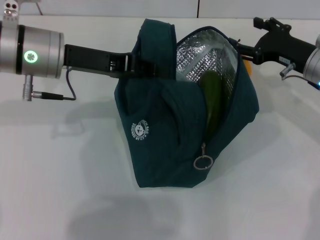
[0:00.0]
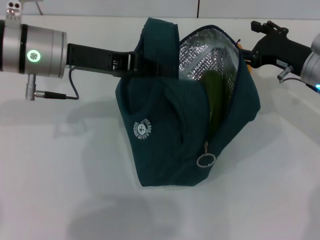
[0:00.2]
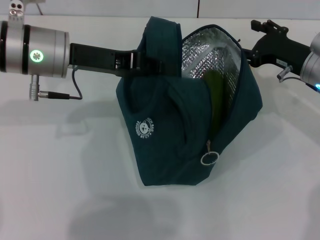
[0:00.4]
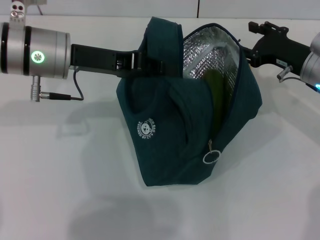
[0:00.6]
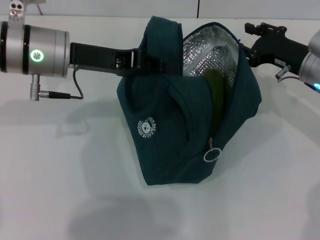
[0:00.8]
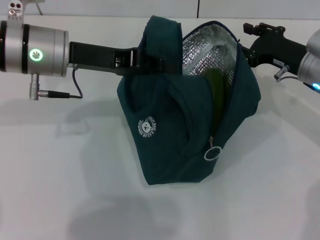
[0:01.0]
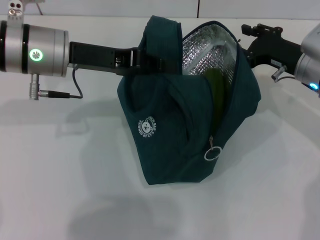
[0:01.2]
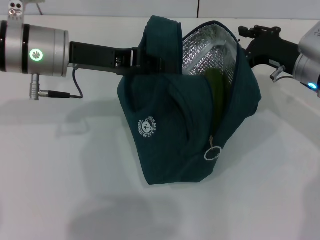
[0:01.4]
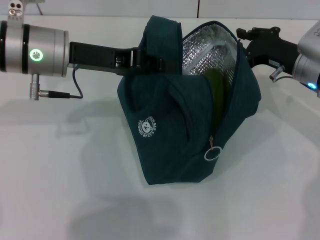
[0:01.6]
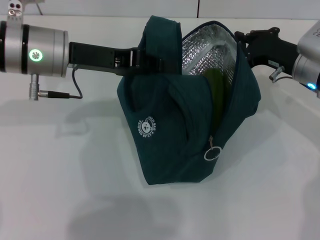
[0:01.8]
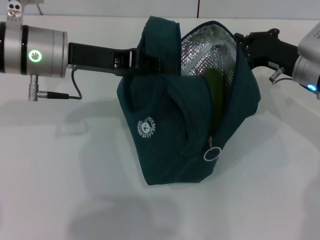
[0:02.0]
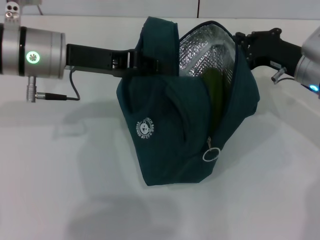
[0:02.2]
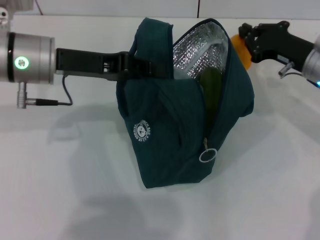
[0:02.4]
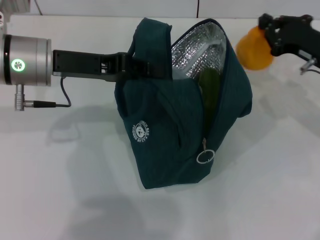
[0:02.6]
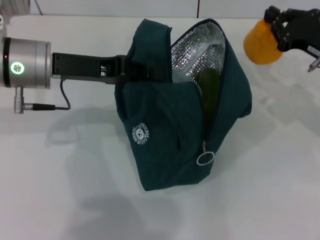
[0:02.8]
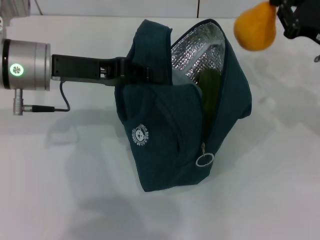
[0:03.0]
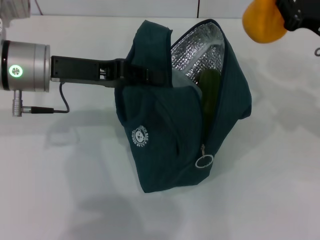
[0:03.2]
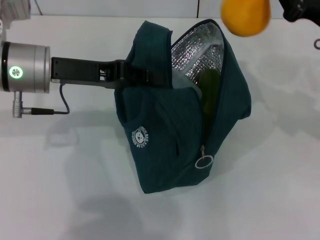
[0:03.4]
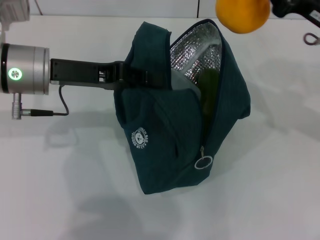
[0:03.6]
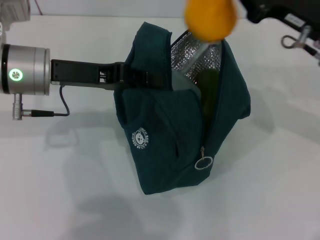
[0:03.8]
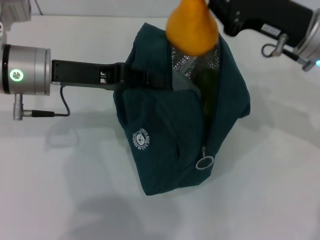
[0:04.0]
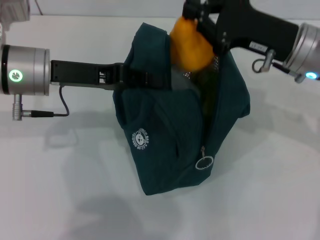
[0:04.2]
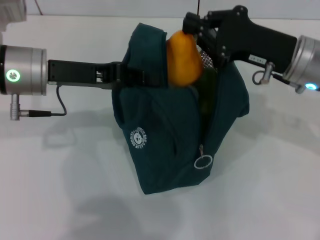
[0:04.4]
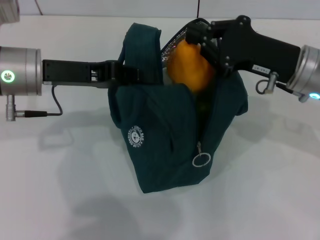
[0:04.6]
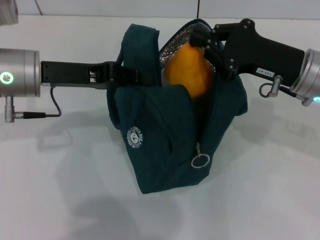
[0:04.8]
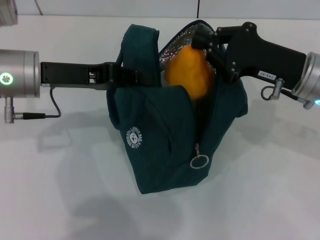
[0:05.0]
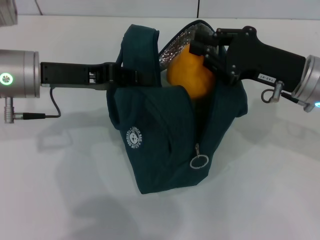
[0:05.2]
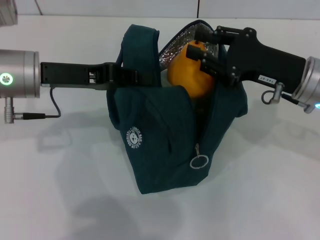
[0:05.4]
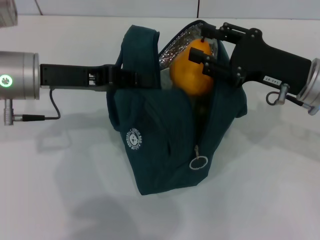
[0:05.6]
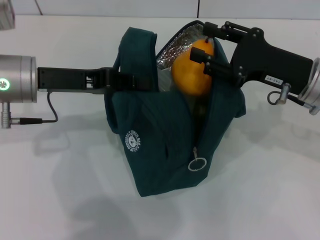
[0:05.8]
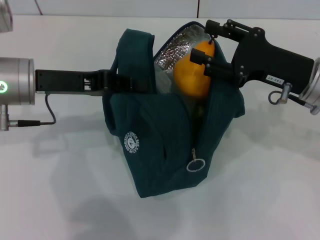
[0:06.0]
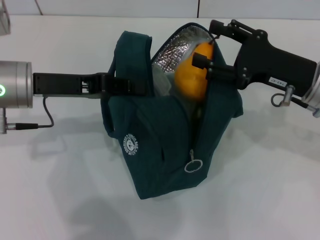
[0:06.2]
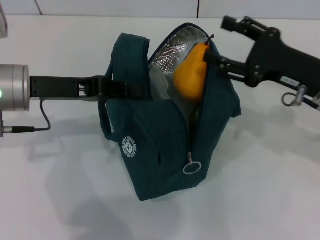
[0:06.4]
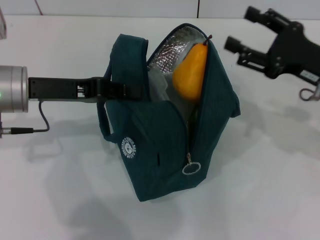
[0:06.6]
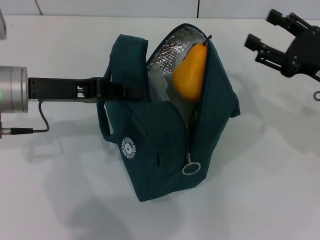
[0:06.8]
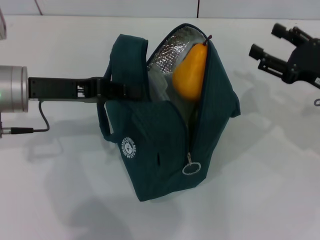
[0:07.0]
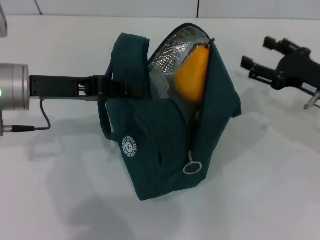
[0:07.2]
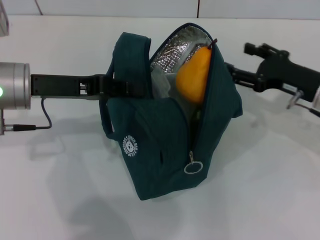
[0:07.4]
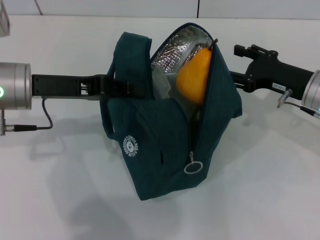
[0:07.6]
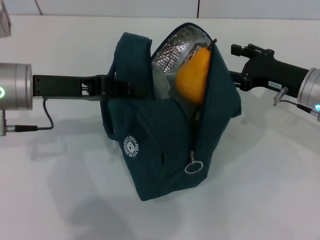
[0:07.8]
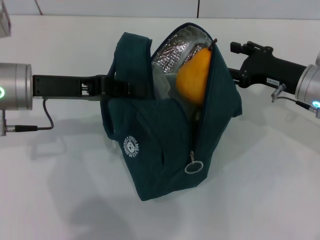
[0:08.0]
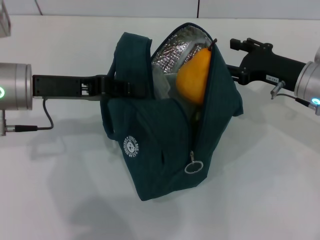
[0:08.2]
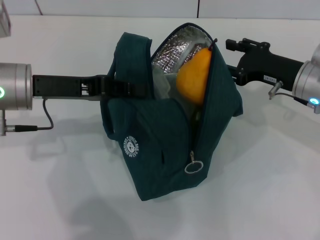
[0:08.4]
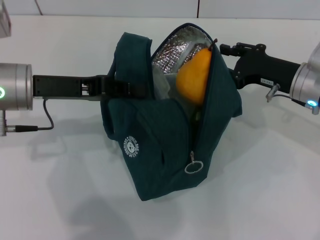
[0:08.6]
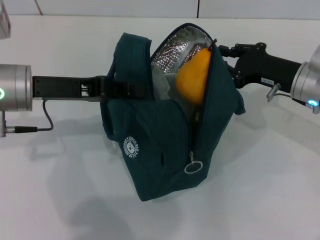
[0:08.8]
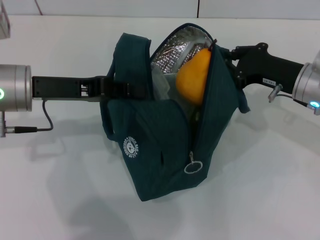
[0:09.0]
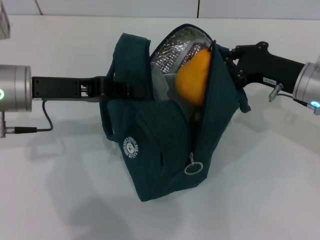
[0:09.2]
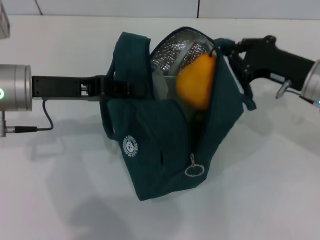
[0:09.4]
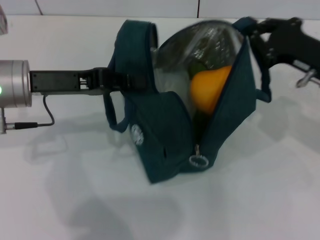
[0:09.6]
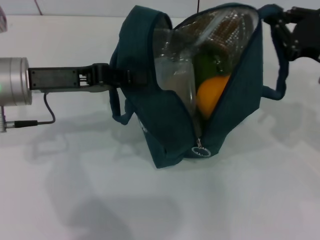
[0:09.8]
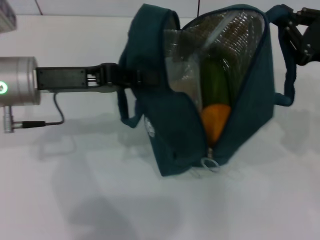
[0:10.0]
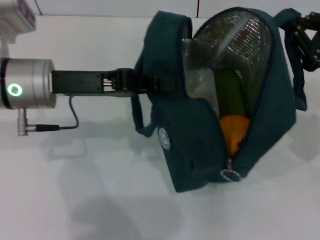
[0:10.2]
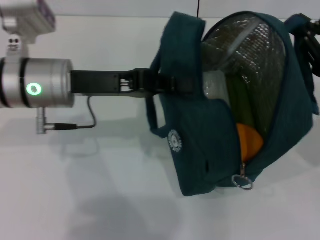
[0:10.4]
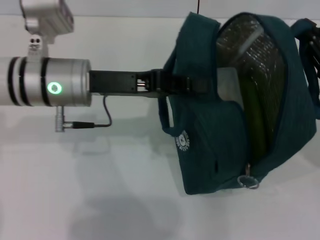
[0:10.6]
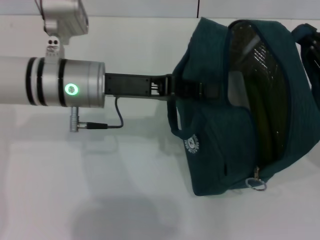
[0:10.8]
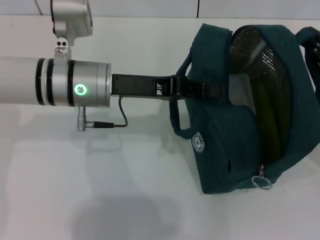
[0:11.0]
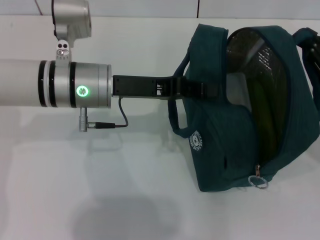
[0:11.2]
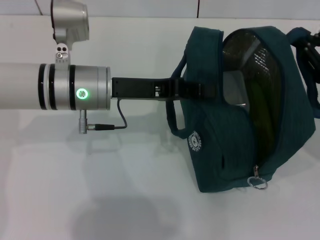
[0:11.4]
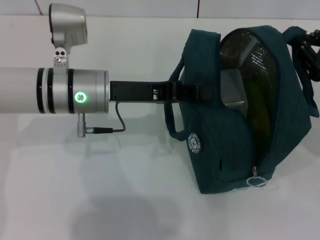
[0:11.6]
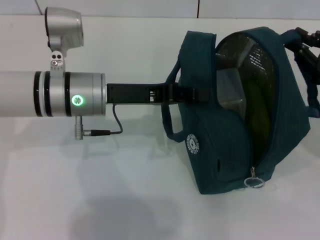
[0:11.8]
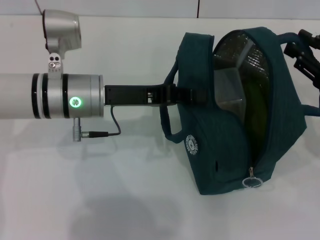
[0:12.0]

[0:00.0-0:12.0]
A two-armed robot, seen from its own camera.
Step, 0:00.0 to 0:02.0: Grab the pear with your right hand.
Step, 0:02.2 to 0:05.4: Secure the lunch bag with your left hand.
0:00.0 to 0:01.6: The right gripper closes up.
0:01.6 to 0:03.0: The right gripper heads to the right, covering approximately 5 cm, and closes.
0:03.0 to 0:04.4: The right gripper shifts roughly 10 cm to the left.
0:04.4 to 0:06.0: The right gripper opens its fingers.
0:06.0 to 0:07.6: The right gripper ends up some 5 cm from where it was.
0:07.6 to 0:09.0: The right gripper closes its fingers.
0:09.0 to 0:10.4: The right gripper shifts some 10 cm to the right and backward. Meanwhile the left gripper shifts some 5 cm to the right.

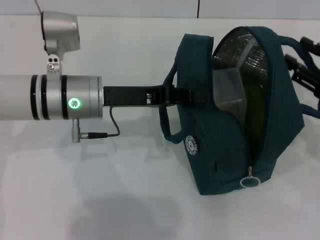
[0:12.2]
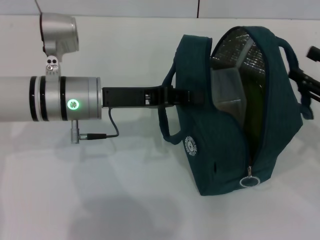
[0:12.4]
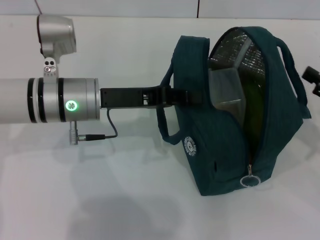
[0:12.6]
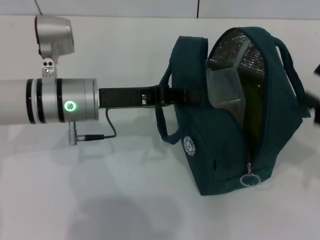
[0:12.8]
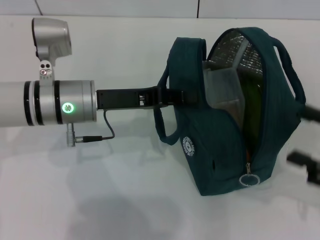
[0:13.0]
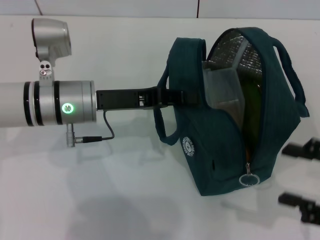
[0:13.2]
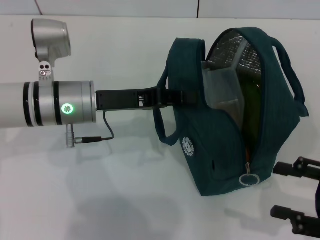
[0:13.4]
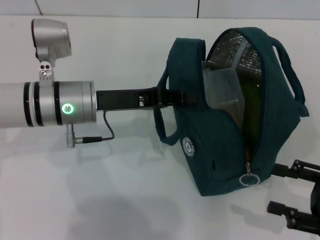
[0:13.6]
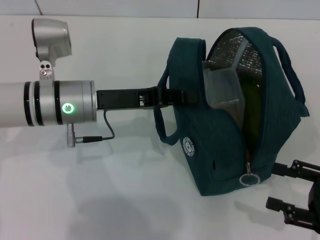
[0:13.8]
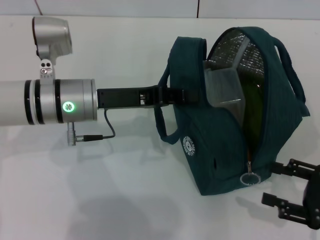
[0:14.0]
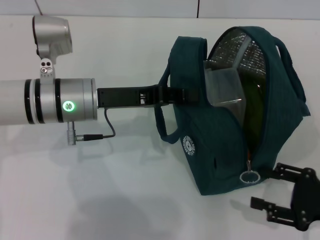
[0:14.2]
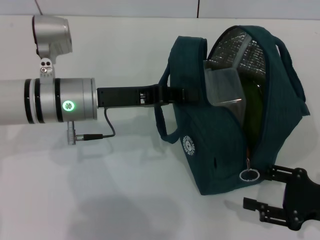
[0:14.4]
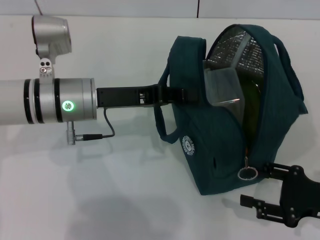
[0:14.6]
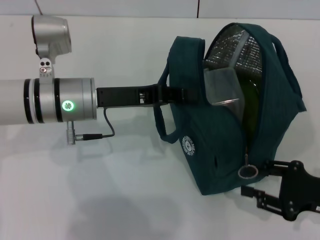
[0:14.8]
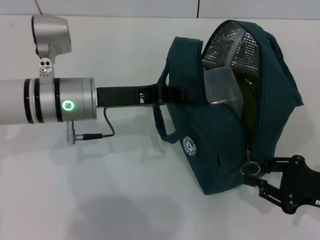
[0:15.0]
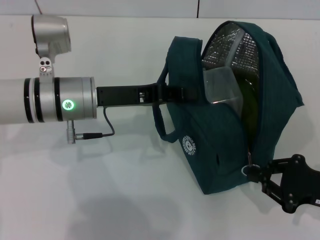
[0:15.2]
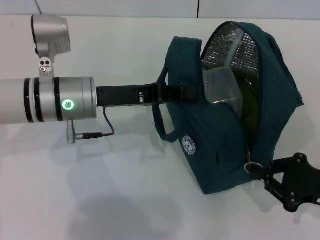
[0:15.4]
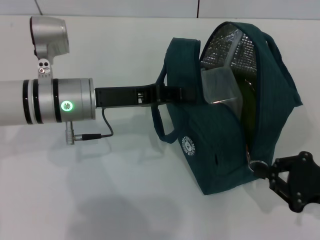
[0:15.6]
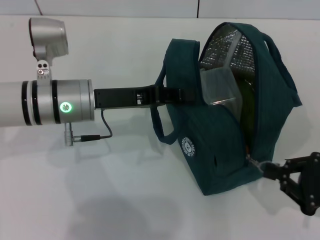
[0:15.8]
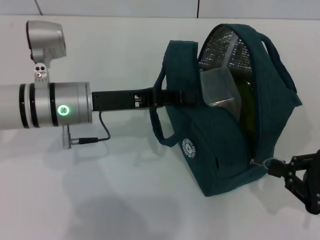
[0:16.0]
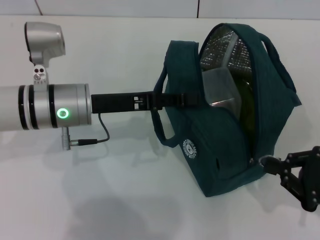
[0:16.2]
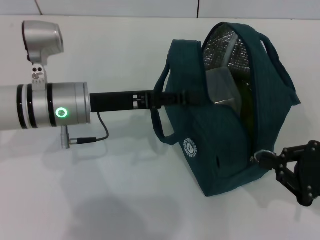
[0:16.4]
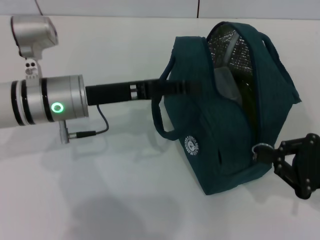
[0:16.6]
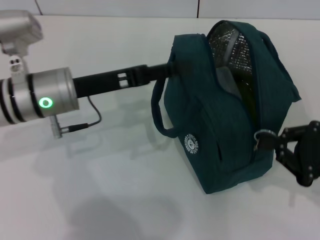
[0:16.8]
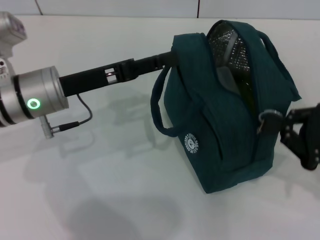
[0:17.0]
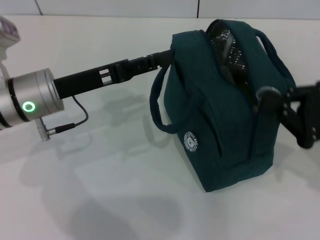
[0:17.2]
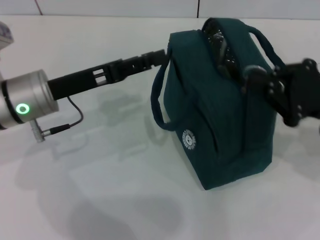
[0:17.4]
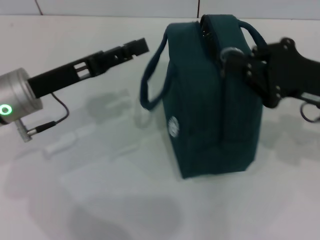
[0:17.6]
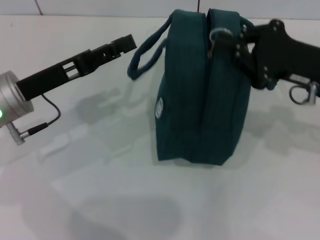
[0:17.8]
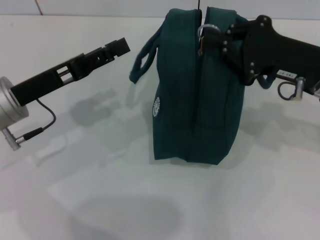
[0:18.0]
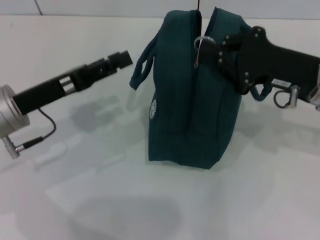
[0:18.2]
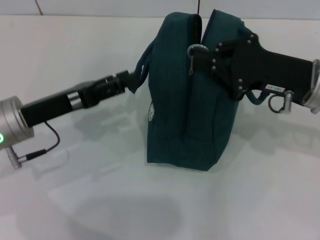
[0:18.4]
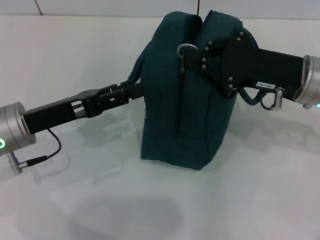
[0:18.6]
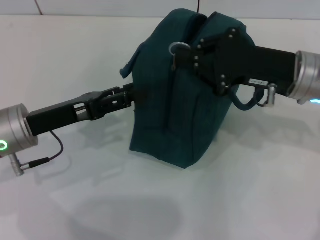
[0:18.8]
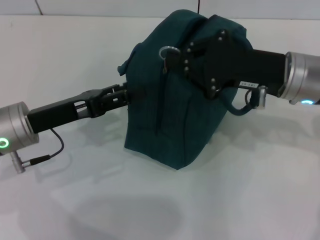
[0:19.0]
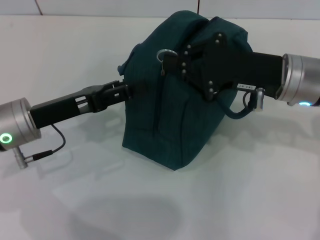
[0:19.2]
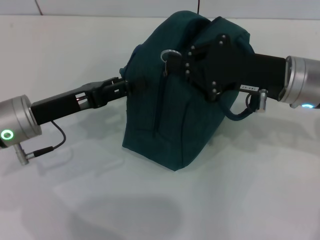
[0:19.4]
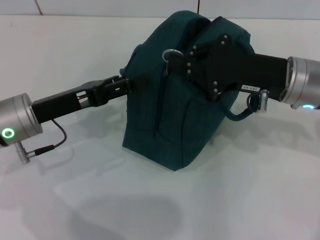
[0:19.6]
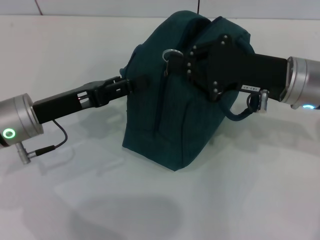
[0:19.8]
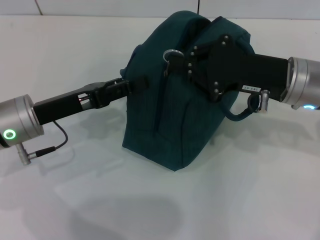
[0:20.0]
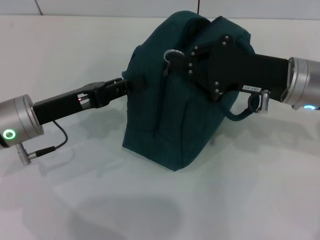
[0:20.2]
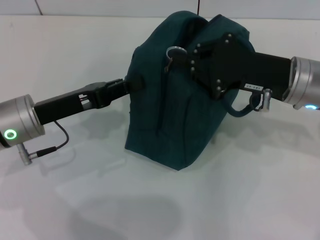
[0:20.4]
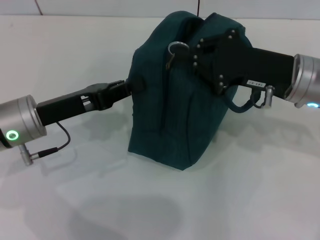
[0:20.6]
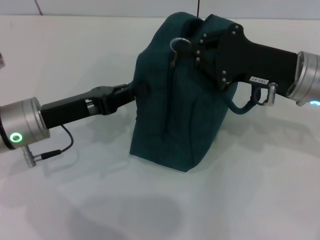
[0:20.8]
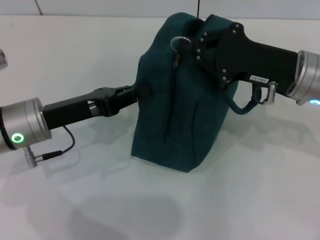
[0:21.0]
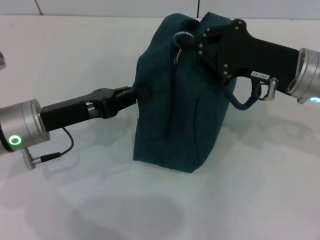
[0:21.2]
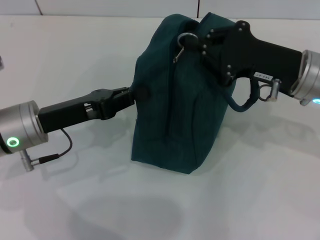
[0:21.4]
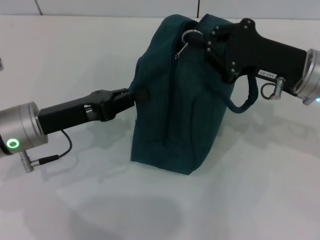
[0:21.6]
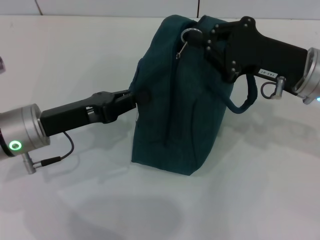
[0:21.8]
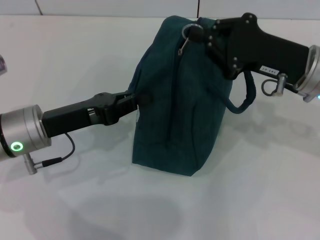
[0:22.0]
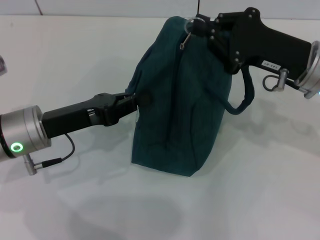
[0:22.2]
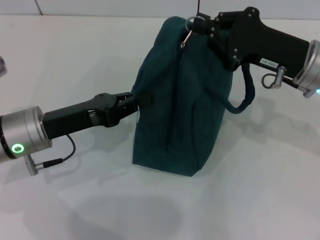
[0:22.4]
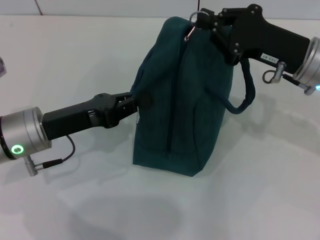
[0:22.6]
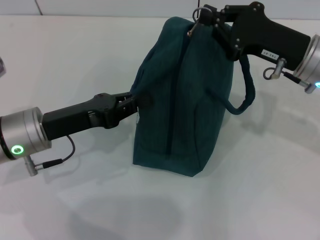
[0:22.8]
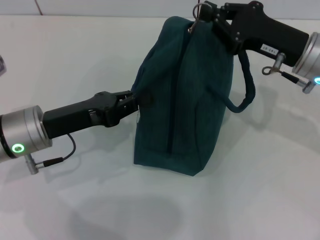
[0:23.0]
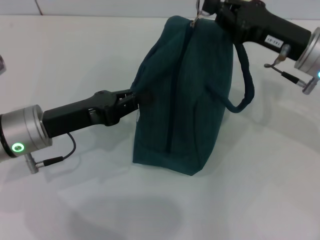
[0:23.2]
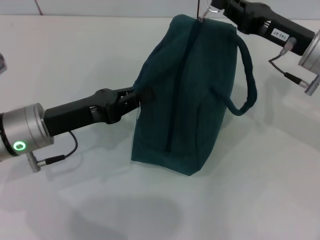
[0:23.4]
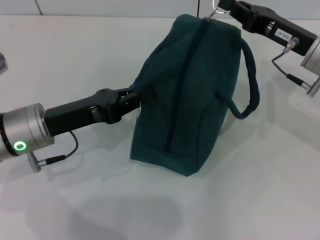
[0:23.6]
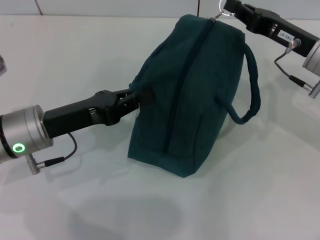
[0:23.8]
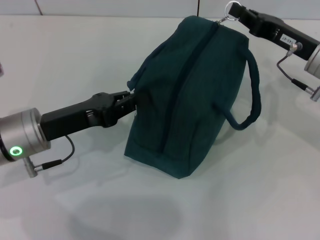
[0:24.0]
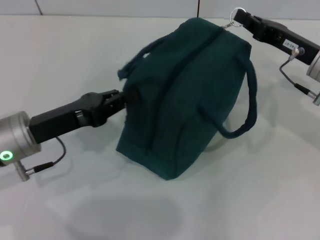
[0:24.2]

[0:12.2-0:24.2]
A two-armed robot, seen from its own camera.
Step, 0:12.4 to 0:16.8: Hold the lunch bag with your left hand.
0:12.2 to 0:13.8: The right gripper is displaced backward and downward by some 10 cm, and opens its fingers.
0:13.8 to 0:15.2: The right gripper closes its fingers.
0:15.2 to 0:16.6: The left gripper opens its fingers.
0:16.6 to 0:18.2: The right gripper travels forward, to the left and upward by about 15 cm. The left gripper shifts approximately 5 cm to the left.
0:19.8 to 0:21.2: The left gripper closes up.
0:21.2 to 0:22.6: There are only small adjustments of the grippers.
